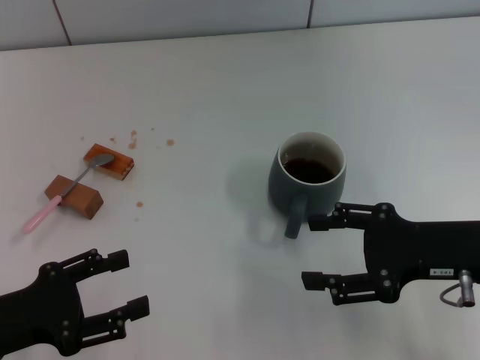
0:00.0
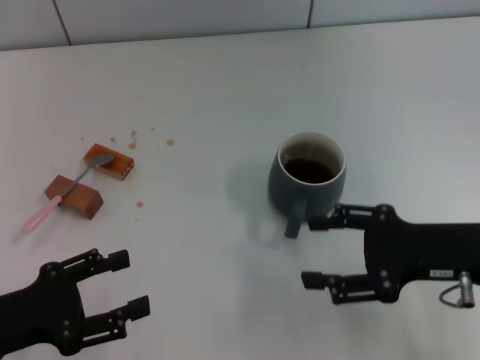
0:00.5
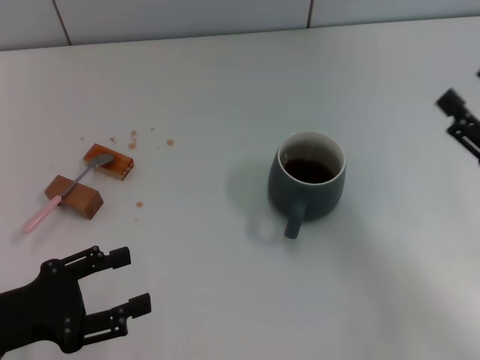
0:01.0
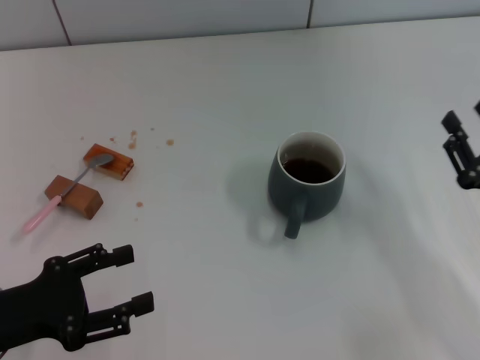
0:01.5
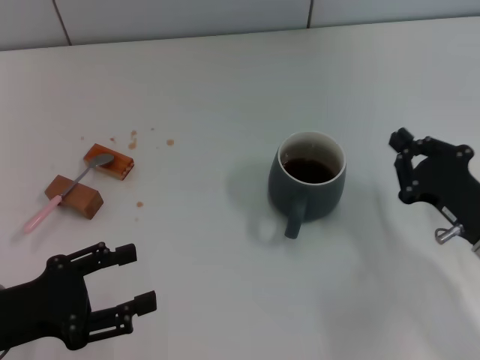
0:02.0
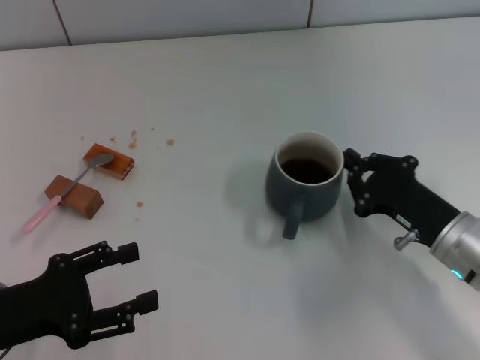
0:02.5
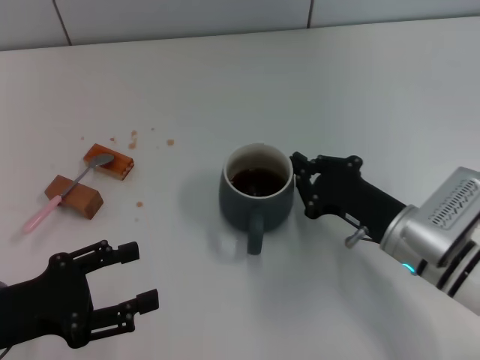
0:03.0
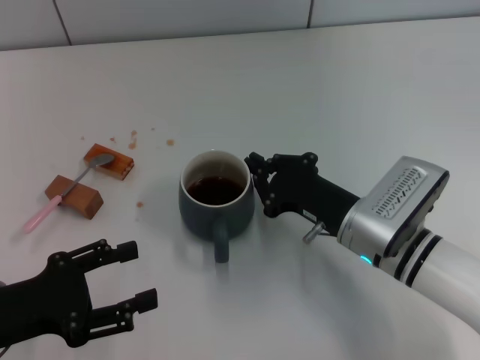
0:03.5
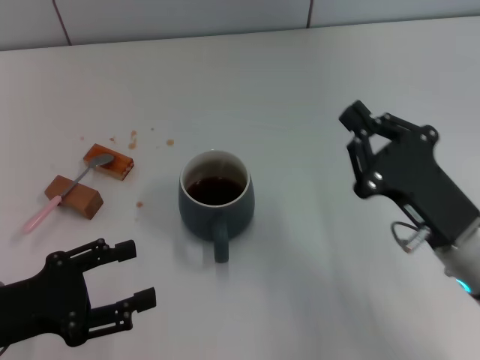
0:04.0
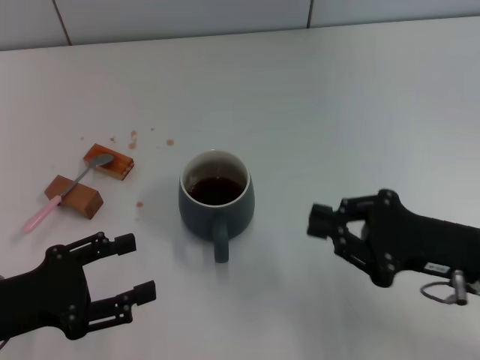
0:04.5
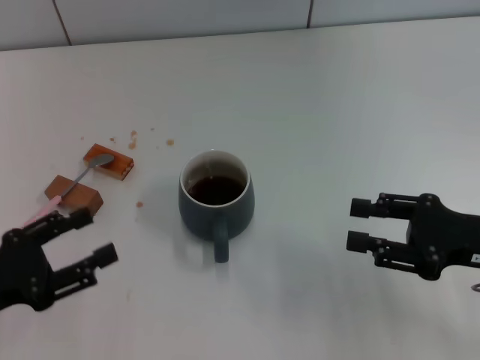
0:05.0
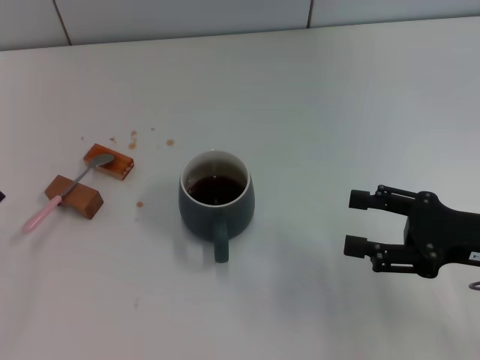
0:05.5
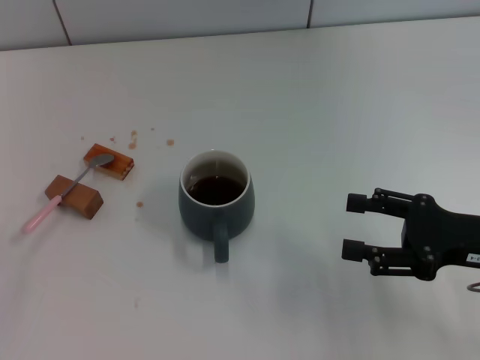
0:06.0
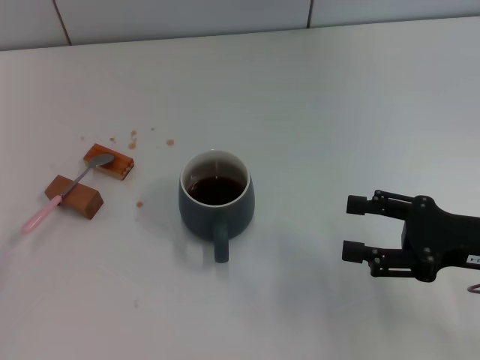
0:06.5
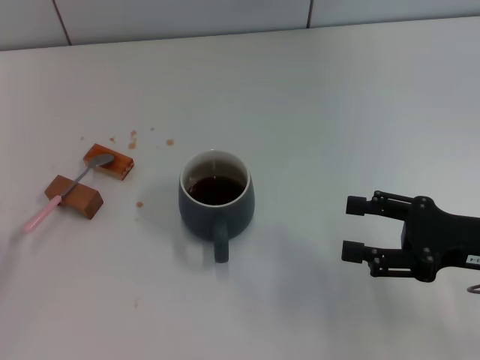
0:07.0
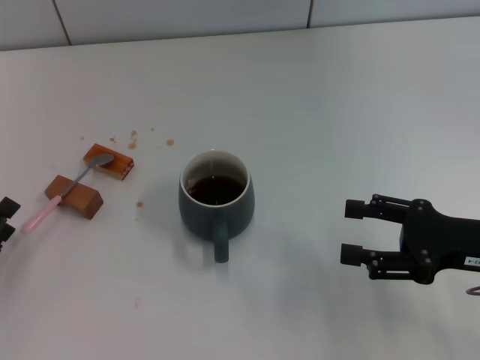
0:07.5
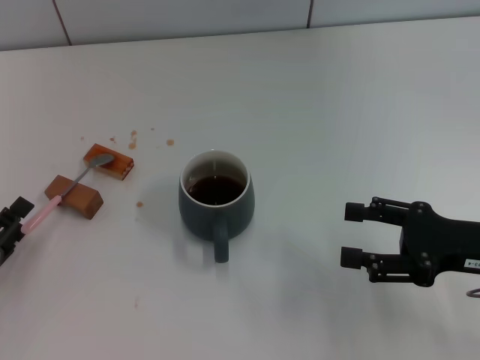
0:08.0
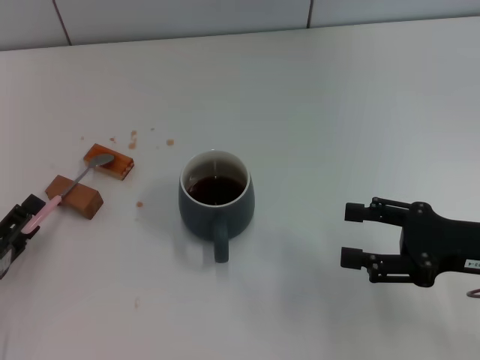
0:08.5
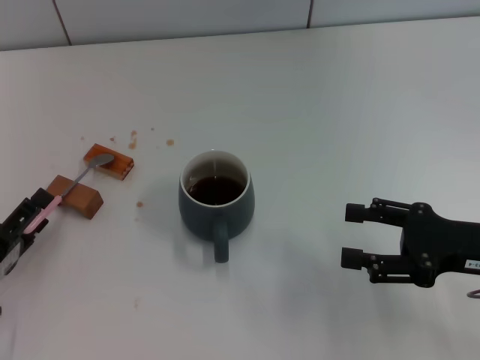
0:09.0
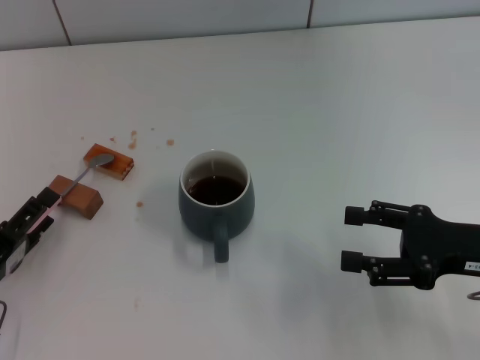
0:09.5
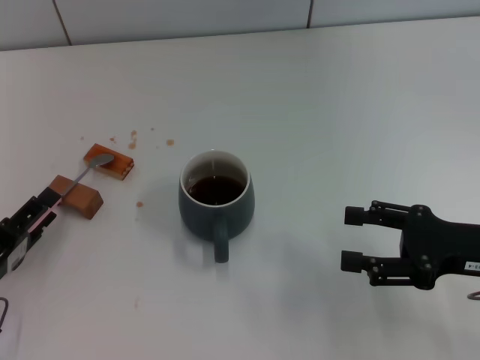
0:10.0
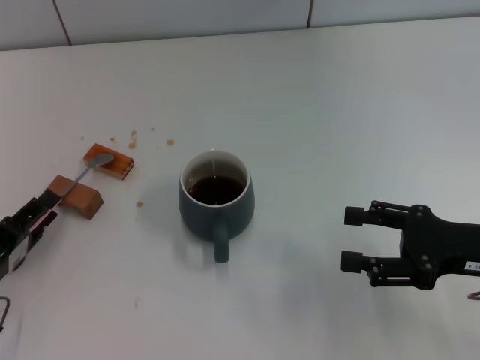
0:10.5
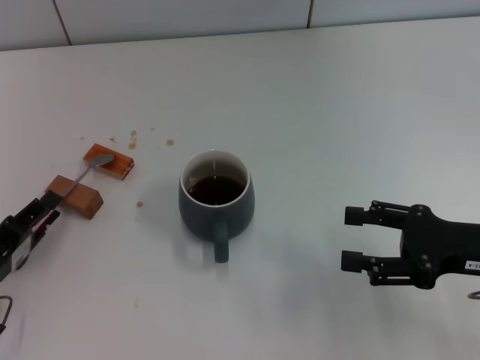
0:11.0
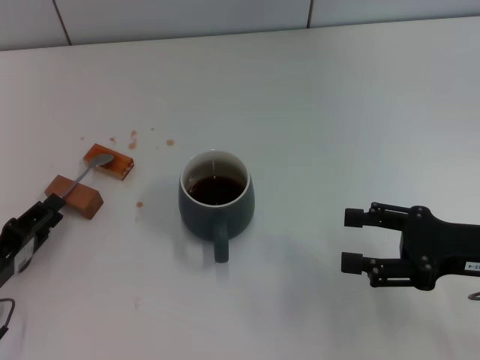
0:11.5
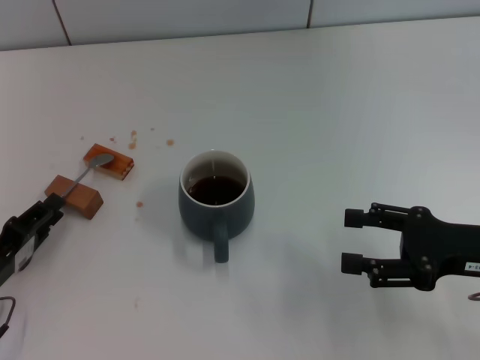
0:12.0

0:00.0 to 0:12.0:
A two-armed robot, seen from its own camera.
Task of the whole recording: Move the grey cup to the center, lift the pink spoon, stir it three times in the cup, and put the spoon into the cup.
Step, 0:00.0 to 0:03.5: Move the cup with coffee to the center of view with the right gripper.
0:00.0 to 0:02.0: The right gripper moves downward, approximately 10 cm, and closes up.
0:02.0 to 0:04.0: The right gripper moves to the left, approximately 5 cm.
0:04.0 to 0:06.0: The right gripper travels to the right by approximately 10 cm, and opens, while the left gripper moves to the left, roughly 5 cm.
0:08.0 to 0:10.0: The grippers move only a little.
0:10.0 to 0:12.0: The left gripper closes its fingers.

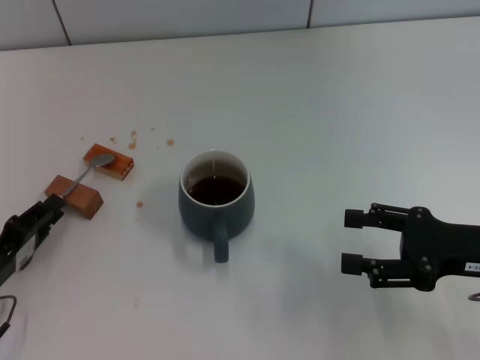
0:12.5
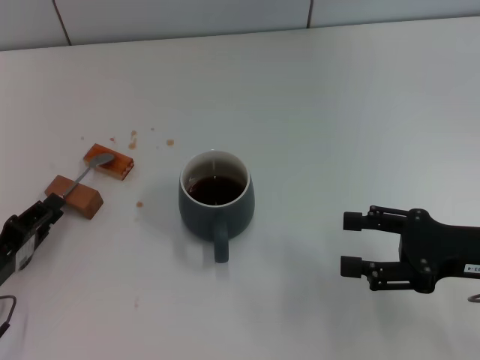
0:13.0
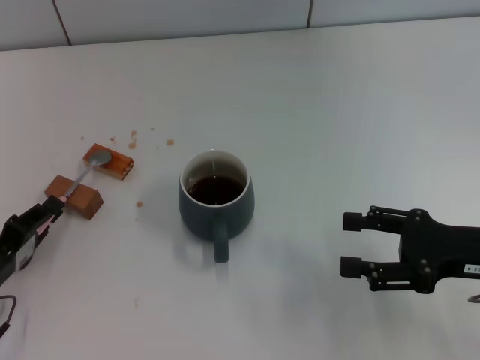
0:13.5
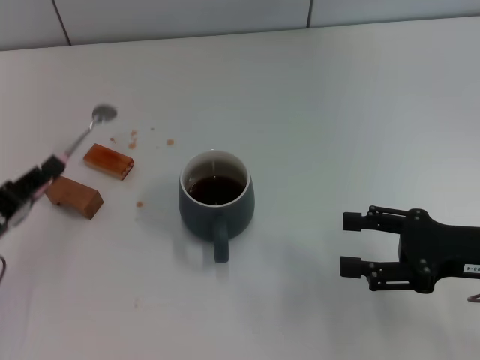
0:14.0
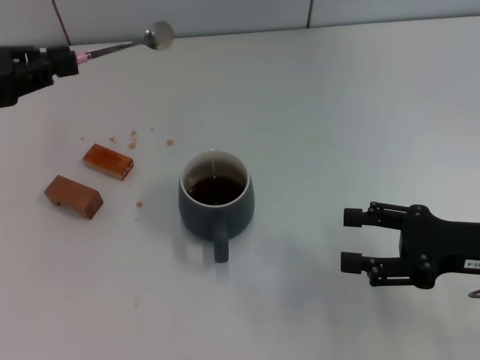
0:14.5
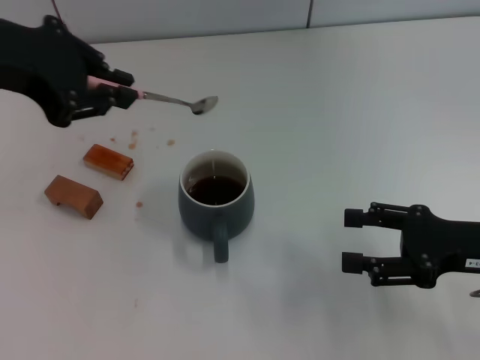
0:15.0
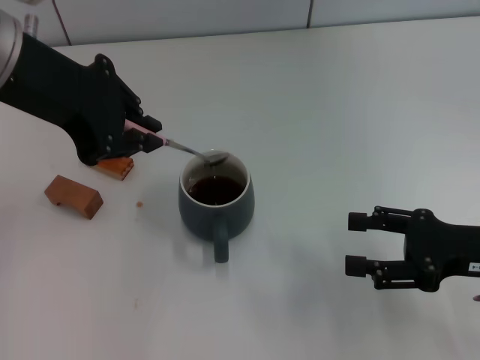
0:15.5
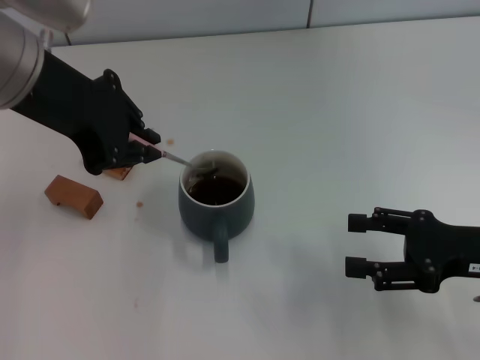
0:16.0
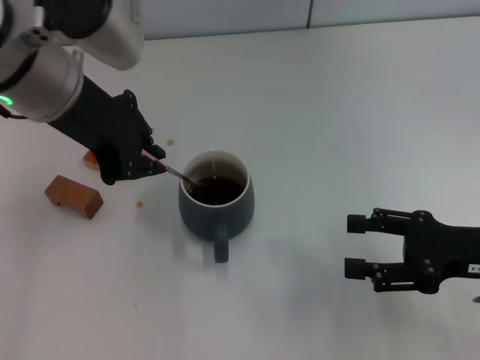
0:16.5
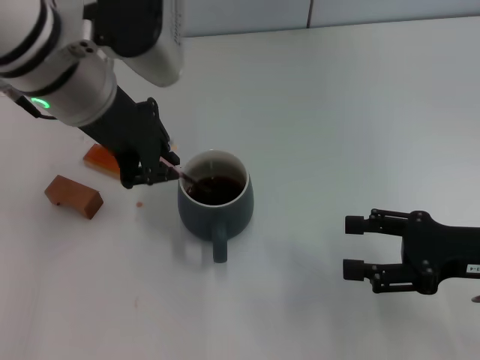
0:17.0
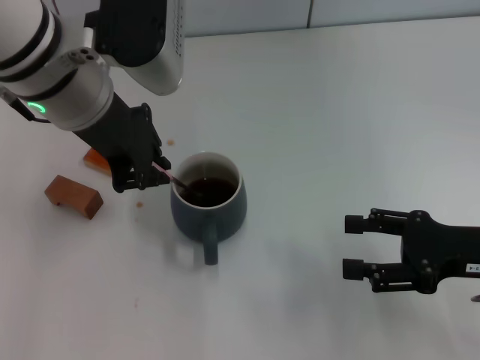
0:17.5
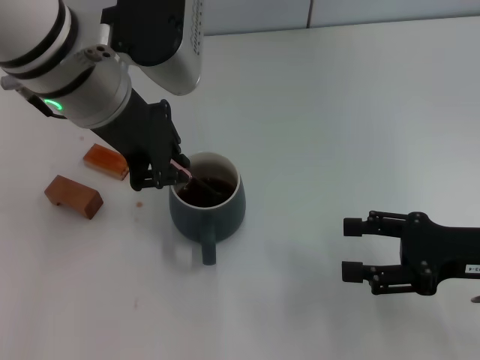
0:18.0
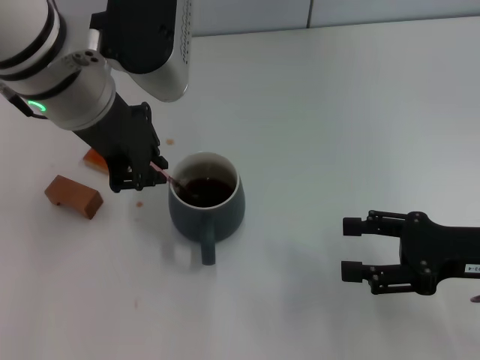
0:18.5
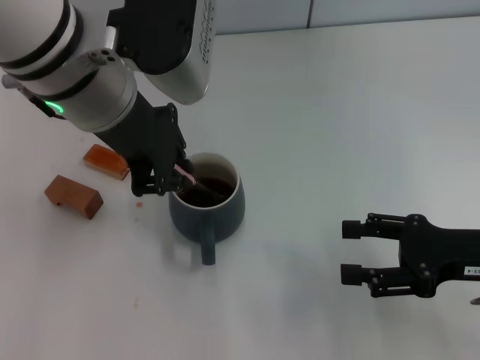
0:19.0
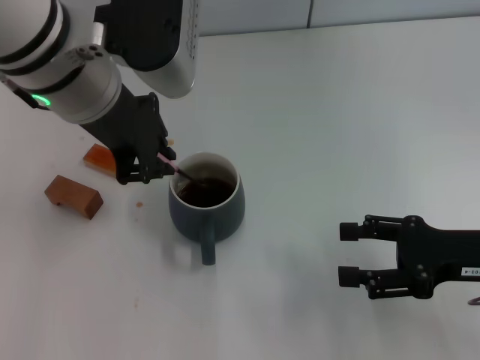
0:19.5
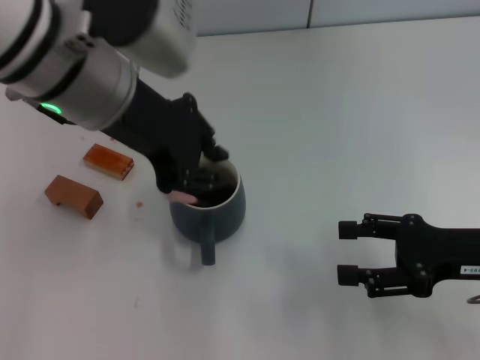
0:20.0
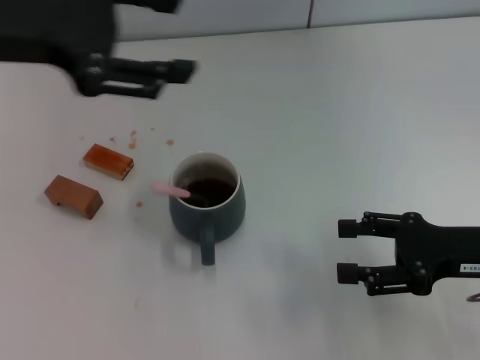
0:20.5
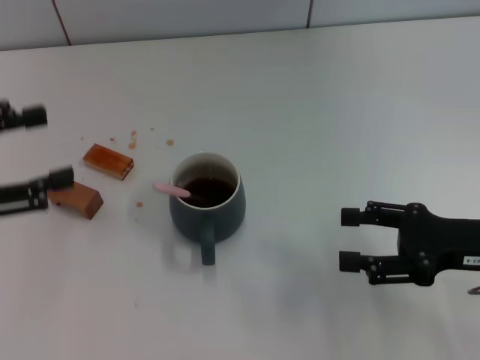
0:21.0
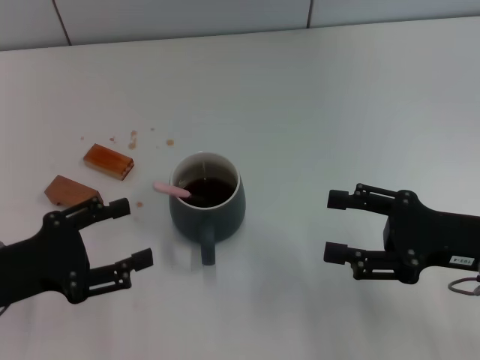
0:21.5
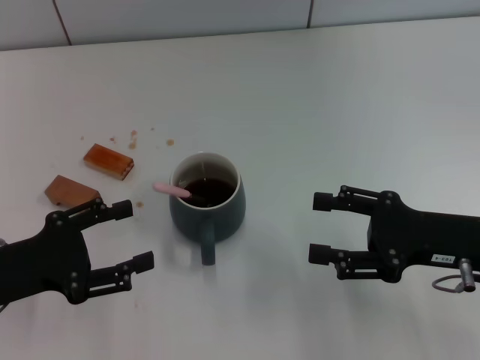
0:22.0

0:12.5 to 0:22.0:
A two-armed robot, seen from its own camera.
Task of the whole recording: Move the grey cup to the center, lift the pink spoon, stir it three times in the cup, and put the spoon into the cup.
Step, 0:14.5 to 0:20.0: Stir the coffee in the cup with the left gripper.
0:12.5 to 0:14.5: The left gripper travels upward and forward by approximately 25 cm.
0:14.5 to 0:16.5: The left gripper heads to the right, covering some 15 cm.
0:16.5 to 0:20.0: There are only small adjustments of the grippers.
0:20.0 to 0:22.0: The left gripper travels downward, to the left and backward by roughly 25 cm, and opens up.

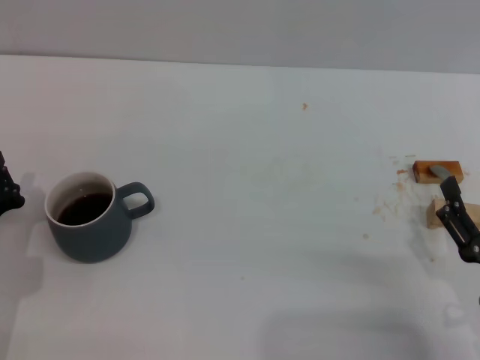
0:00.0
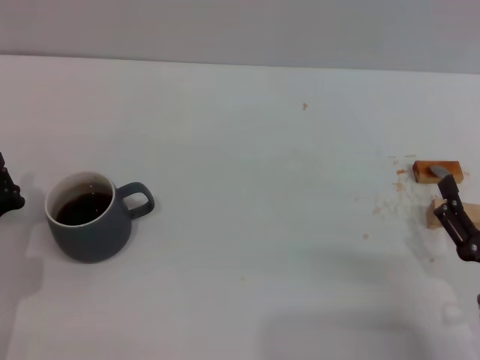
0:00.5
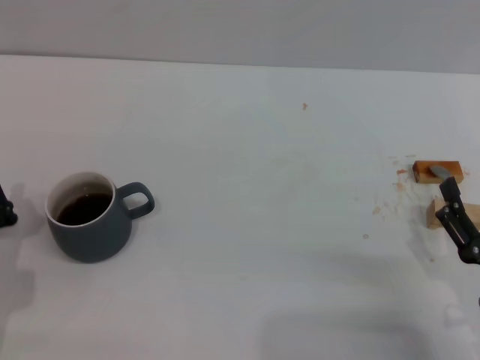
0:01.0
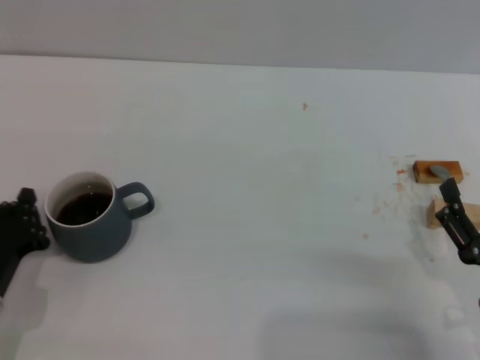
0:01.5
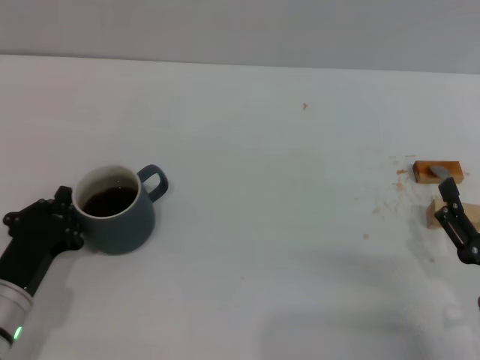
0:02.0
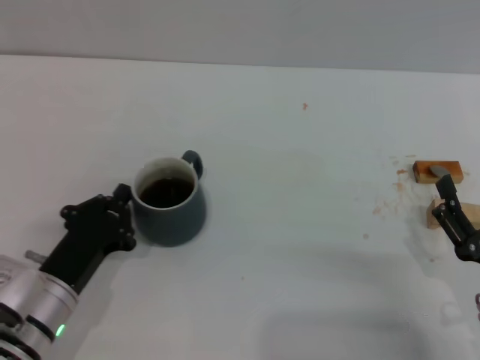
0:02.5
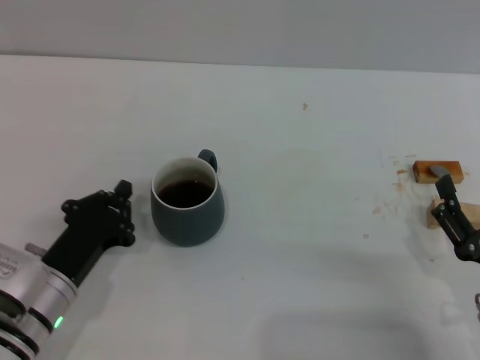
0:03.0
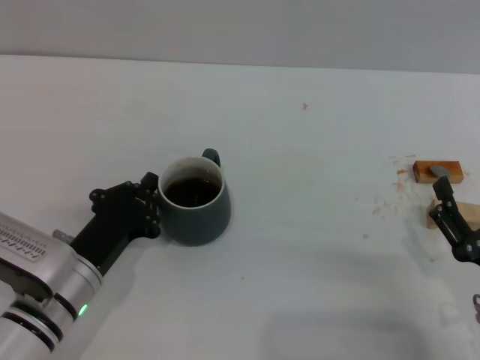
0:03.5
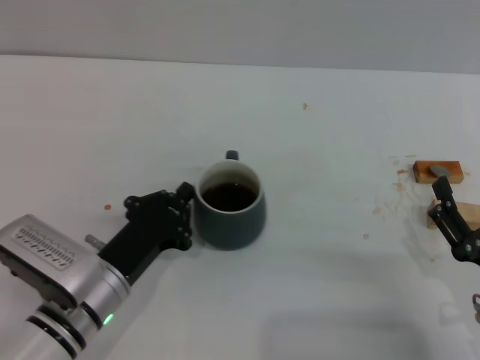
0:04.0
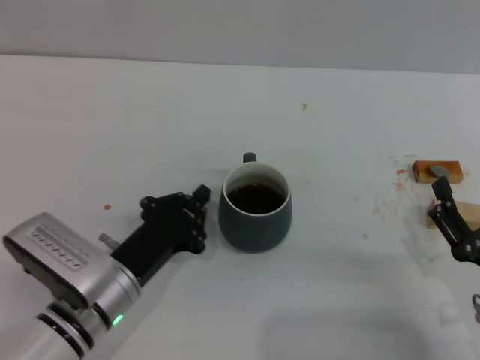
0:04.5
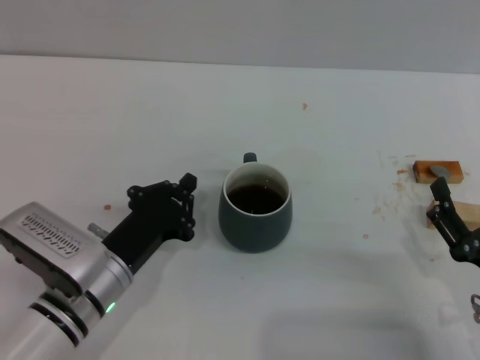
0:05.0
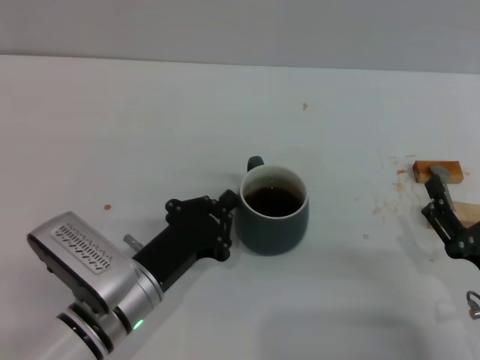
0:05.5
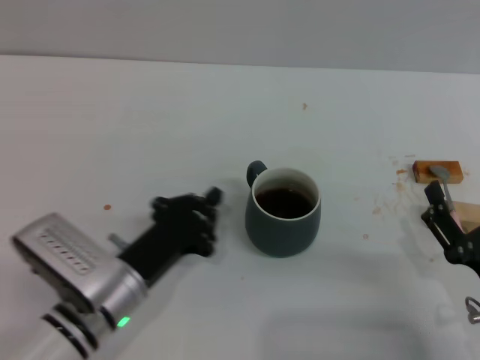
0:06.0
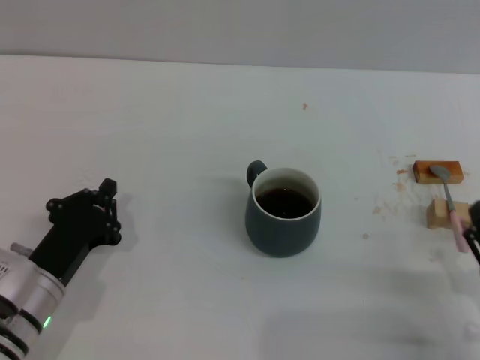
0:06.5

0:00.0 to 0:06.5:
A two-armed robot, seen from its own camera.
Task of the whole recording: Move the grey cup to the center, lift the pink spoon, stir it three times in the cup, and put the spoon into the cup.
Step, 0:00.0 to 0:05.5: Move the cup with coffee to the center of view with the left gripper.
0:00.0 to 0:02.0: The left gripper changes place by roughly 5 cm.
0:02.0 to 0:04.5: The left gripper is displaced to the right by some 10 cm.
0:04.5 to 0:06.5: The left gripper shifts approximately 5 cm to the left.
